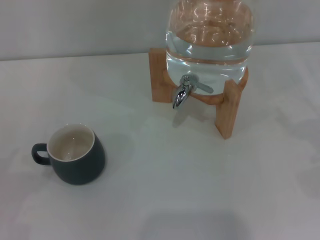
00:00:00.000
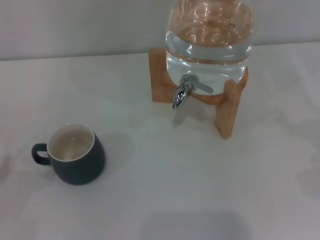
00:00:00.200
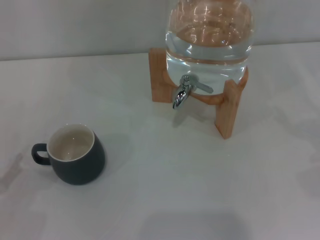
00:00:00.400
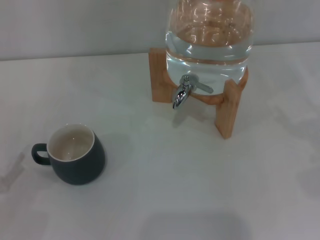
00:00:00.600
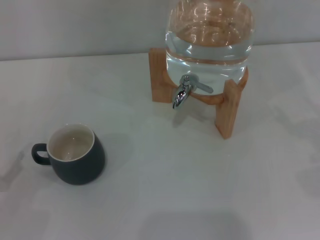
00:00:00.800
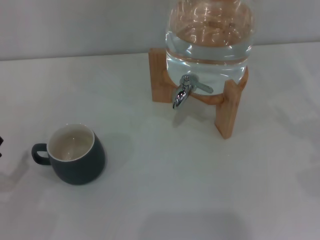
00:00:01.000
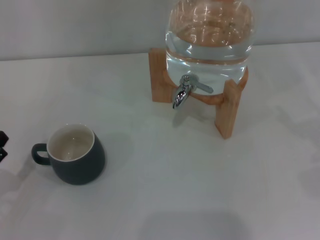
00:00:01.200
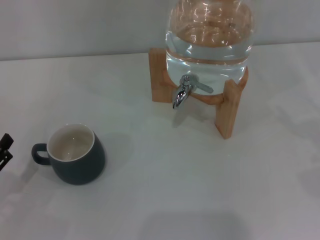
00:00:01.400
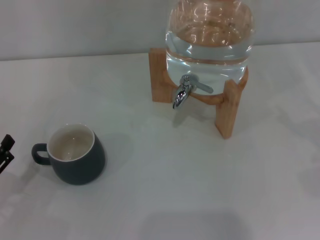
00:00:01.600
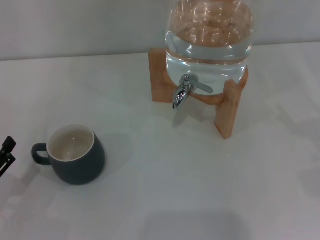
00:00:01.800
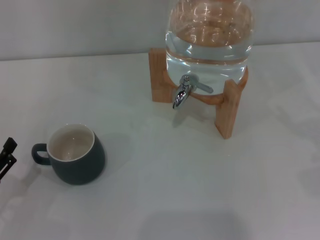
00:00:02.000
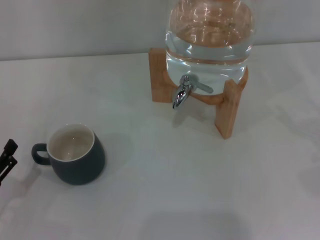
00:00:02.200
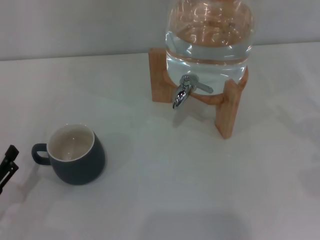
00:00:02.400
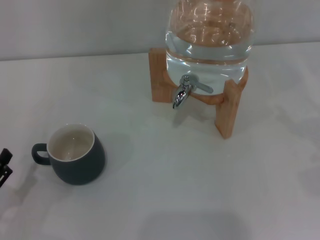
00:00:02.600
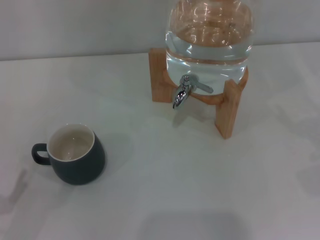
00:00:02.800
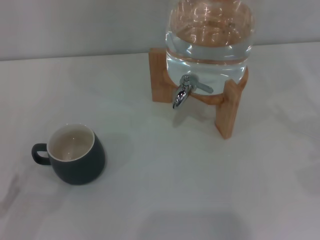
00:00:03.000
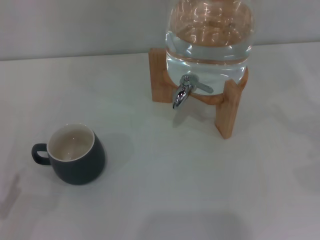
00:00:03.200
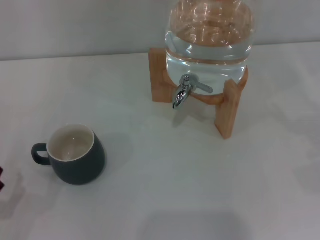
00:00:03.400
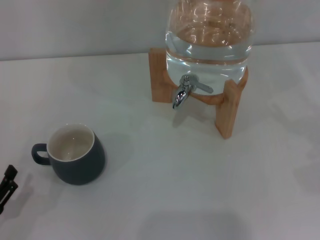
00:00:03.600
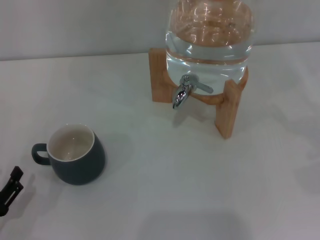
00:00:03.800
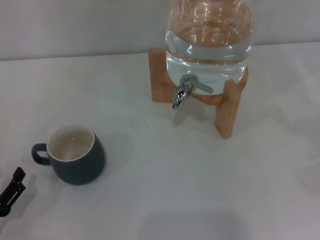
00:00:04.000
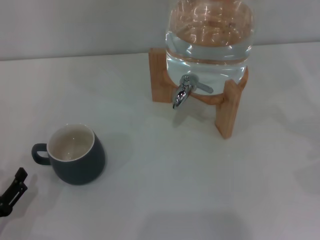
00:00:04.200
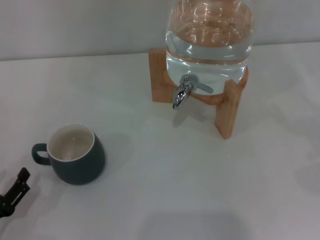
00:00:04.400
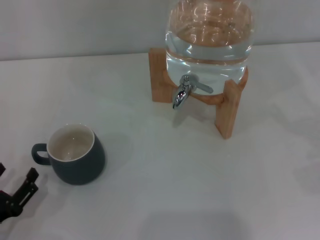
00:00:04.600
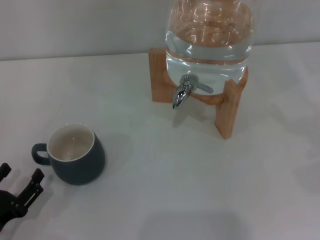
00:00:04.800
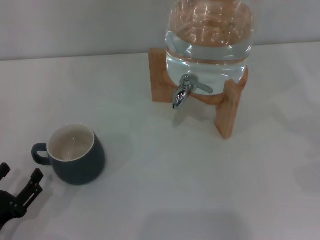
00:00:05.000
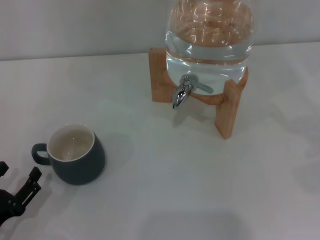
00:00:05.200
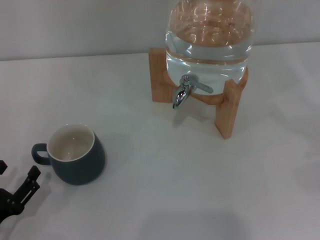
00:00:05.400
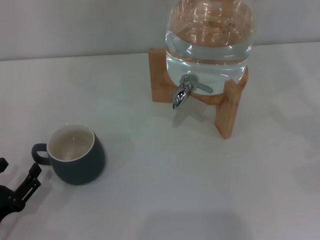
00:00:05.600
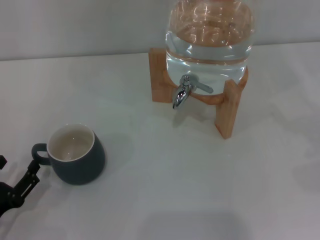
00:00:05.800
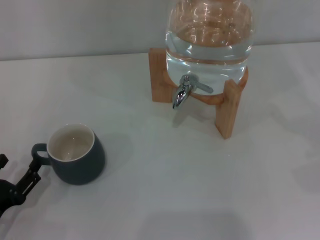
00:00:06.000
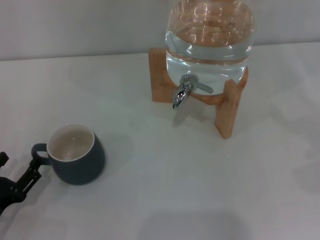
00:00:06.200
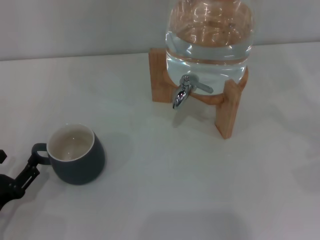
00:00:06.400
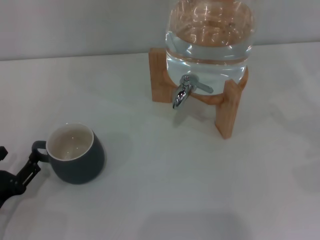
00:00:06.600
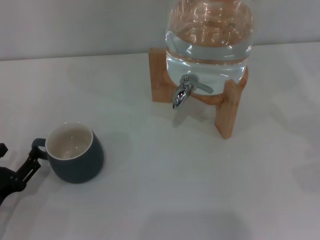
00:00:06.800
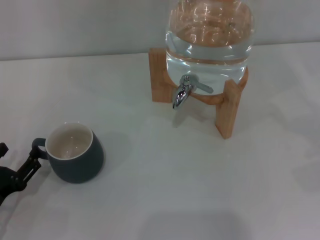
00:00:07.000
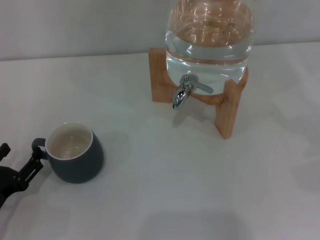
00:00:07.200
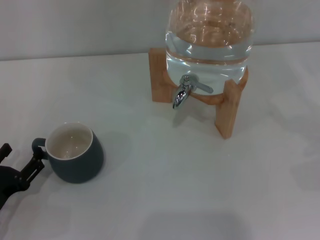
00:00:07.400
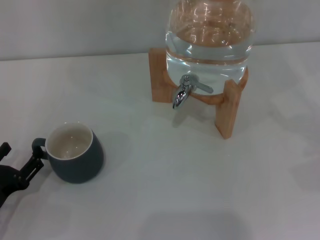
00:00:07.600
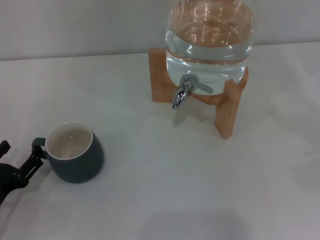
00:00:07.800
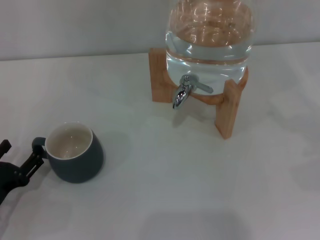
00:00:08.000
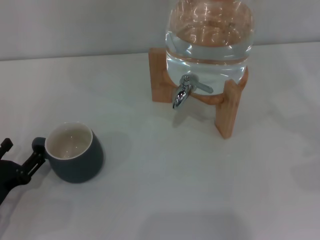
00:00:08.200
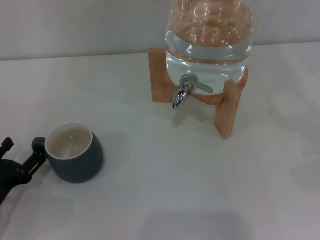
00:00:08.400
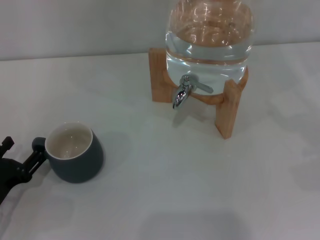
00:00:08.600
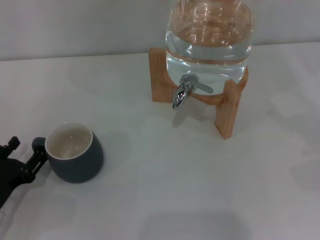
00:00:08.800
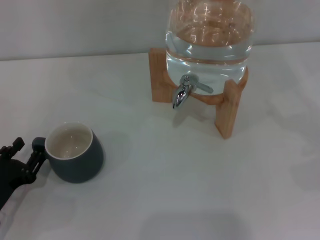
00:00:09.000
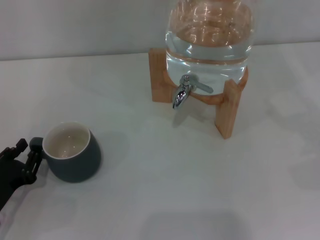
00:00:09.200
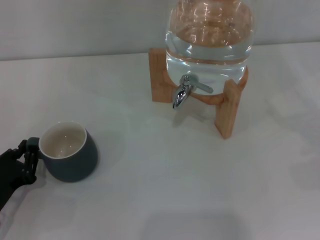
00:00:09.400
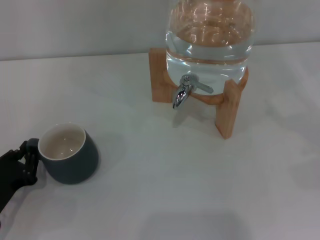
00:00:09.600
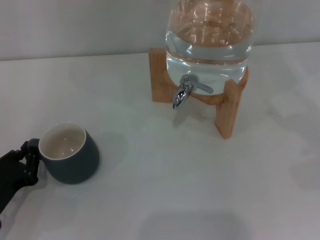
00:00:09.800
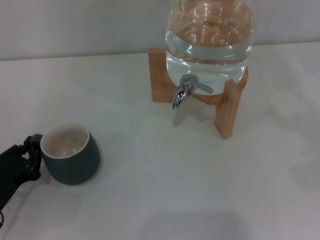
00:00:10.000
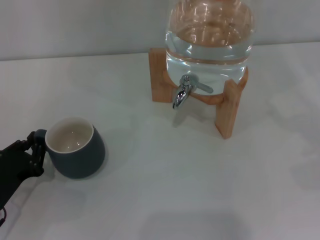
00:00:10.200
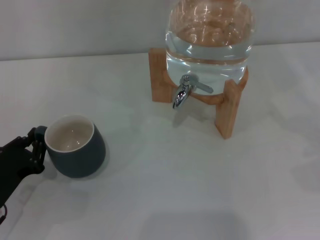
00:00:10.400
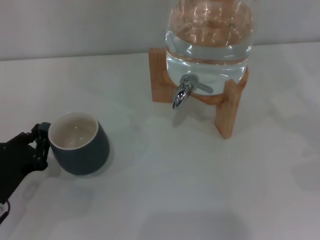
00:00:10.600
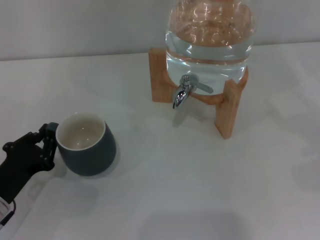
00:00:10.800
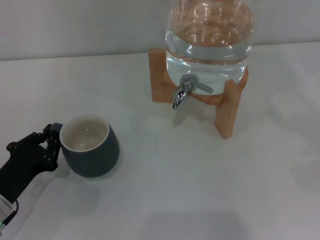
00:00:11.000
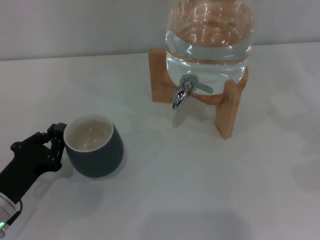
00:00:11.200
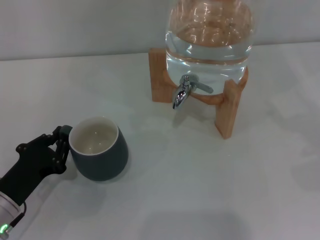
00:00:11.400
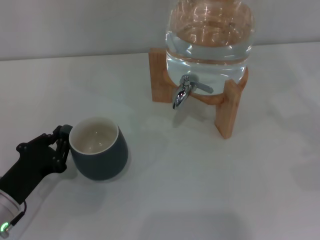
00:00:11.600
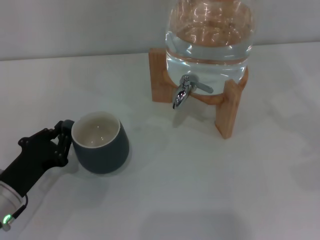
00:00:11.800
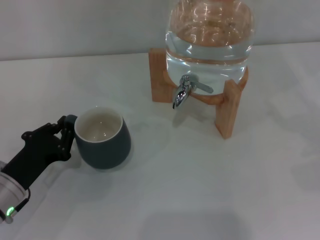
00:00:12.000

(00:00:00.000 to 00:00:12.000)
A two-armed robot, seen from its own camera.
Task of the whole recording: the left gripper pick up the black cup and place it horizontally under the faucet, the right gripper turn on the faucet to fill the cup, and then turn off the faucet.
00:00:00.000 - 00:00:01.600: The left gripper shifts some 5 cm to the right.
00:00:03.000 - 00:00:06.000: The grippers stay close to where they were, moving slightly.
00:00:06.000 - 00:00:07.600: The grippers stay close to where they were, moving slightly.
00:00:07.600 - 00:00:09.000: Both grippers stay about where they are.
00:00:09.000 - 00:00:10.400: The left gripper closes up.
00:00:10.400 - 00:00:12.000: The grippers make only small movements.

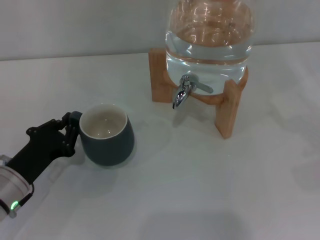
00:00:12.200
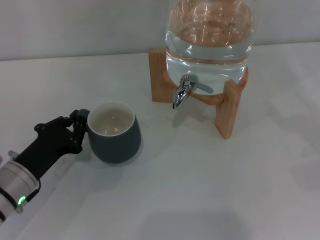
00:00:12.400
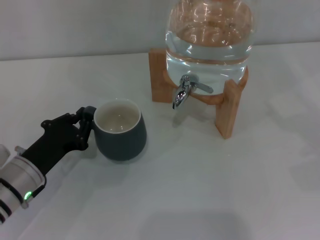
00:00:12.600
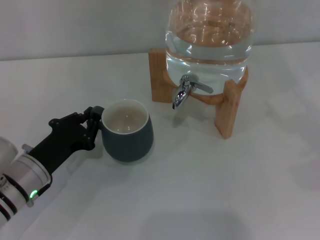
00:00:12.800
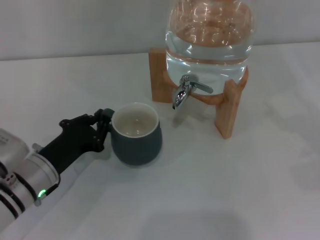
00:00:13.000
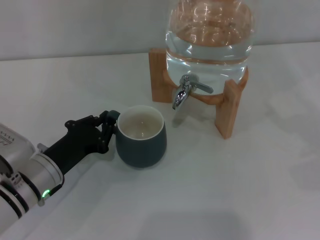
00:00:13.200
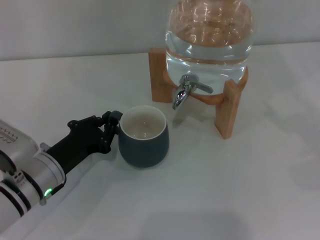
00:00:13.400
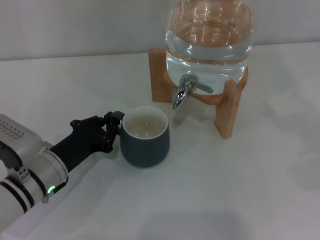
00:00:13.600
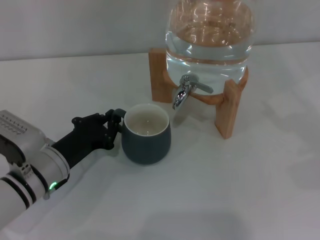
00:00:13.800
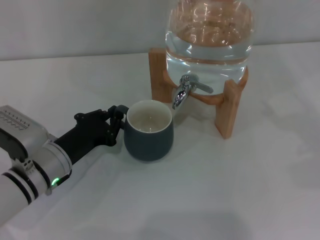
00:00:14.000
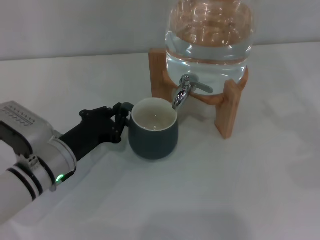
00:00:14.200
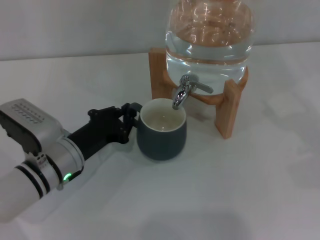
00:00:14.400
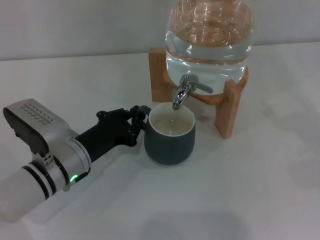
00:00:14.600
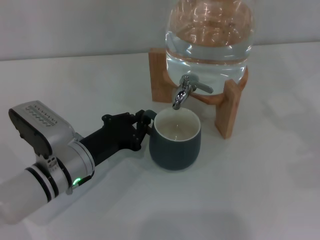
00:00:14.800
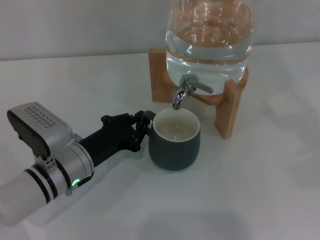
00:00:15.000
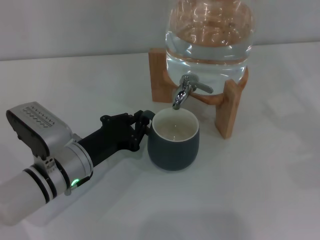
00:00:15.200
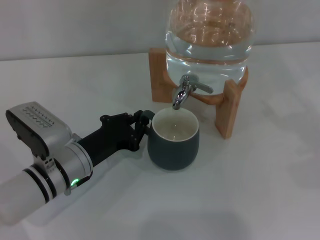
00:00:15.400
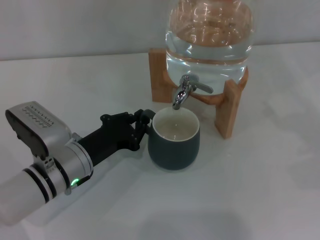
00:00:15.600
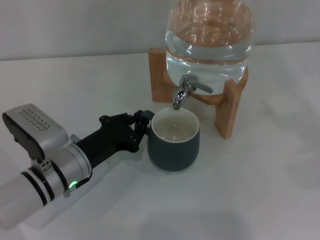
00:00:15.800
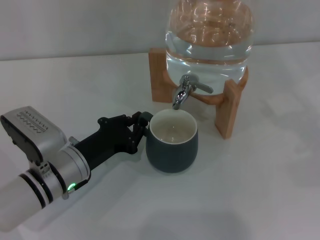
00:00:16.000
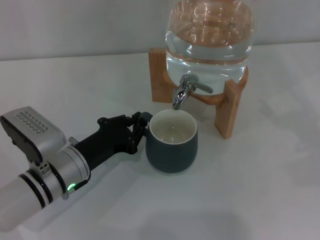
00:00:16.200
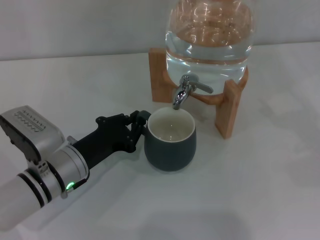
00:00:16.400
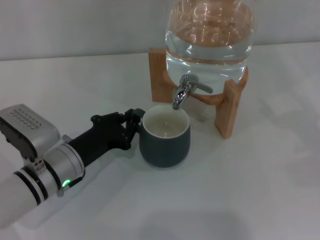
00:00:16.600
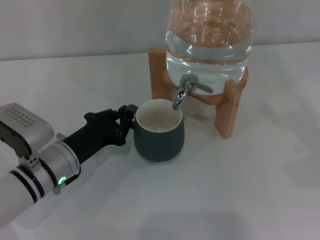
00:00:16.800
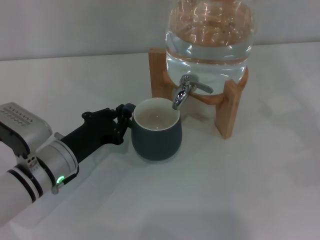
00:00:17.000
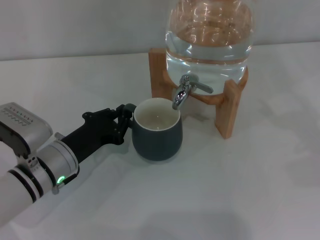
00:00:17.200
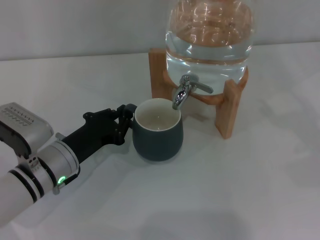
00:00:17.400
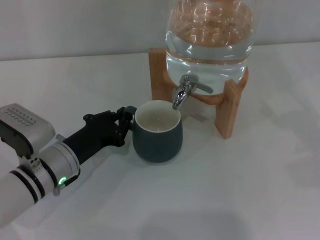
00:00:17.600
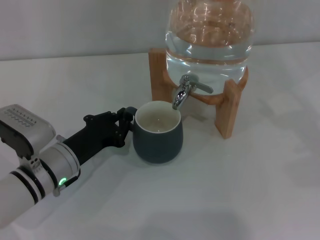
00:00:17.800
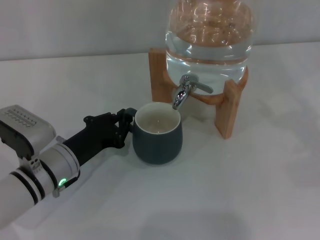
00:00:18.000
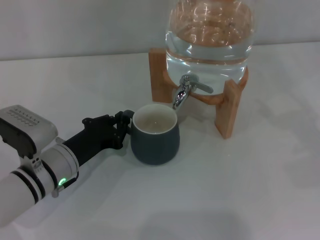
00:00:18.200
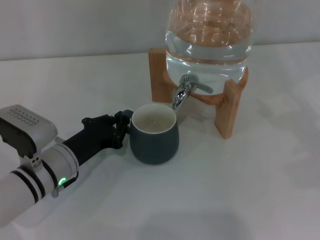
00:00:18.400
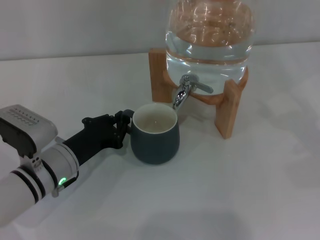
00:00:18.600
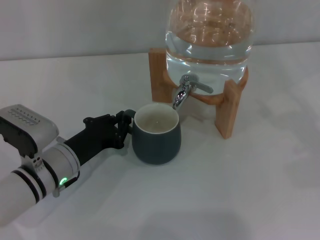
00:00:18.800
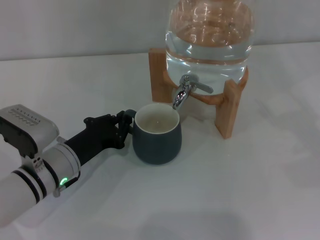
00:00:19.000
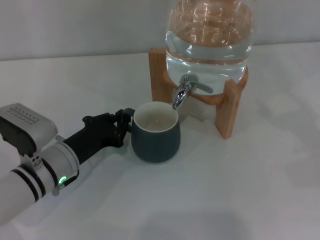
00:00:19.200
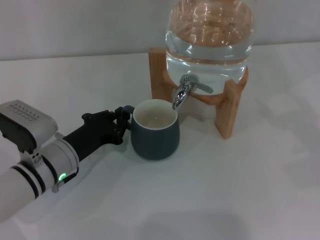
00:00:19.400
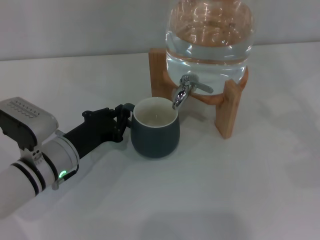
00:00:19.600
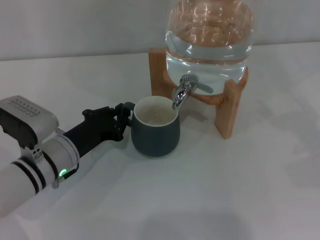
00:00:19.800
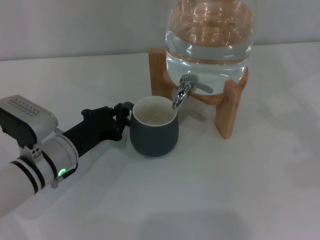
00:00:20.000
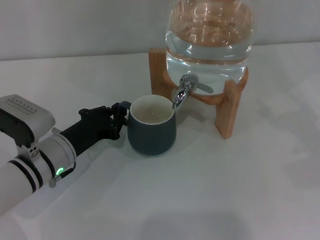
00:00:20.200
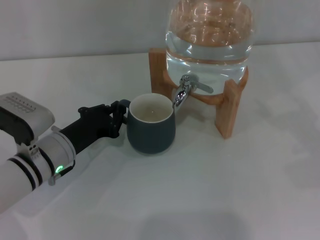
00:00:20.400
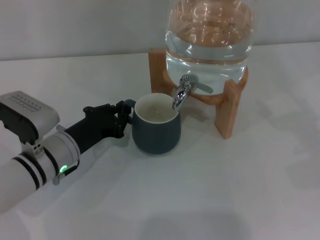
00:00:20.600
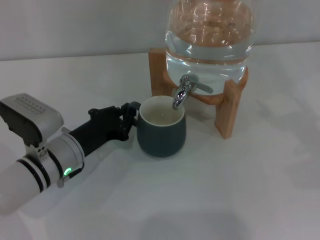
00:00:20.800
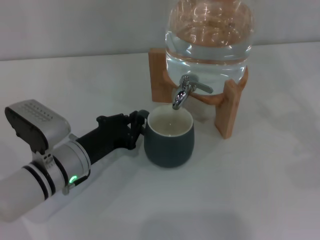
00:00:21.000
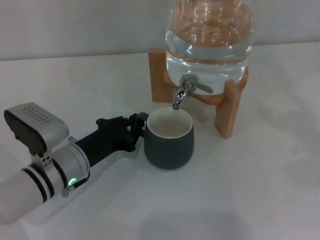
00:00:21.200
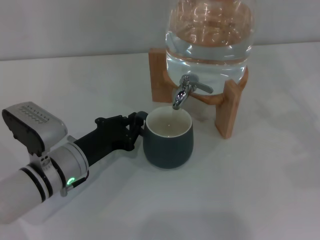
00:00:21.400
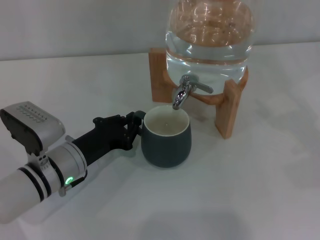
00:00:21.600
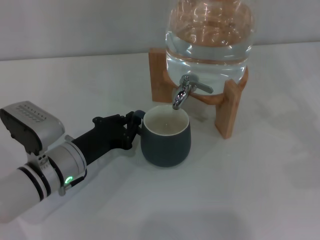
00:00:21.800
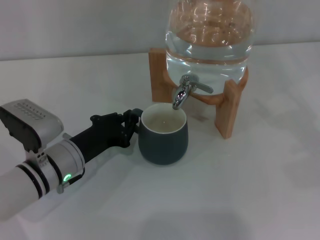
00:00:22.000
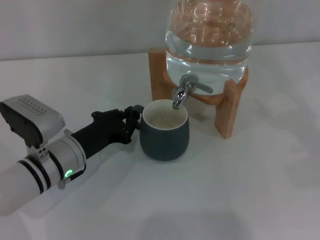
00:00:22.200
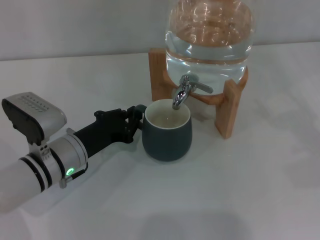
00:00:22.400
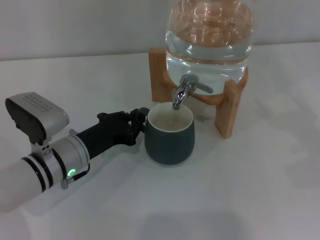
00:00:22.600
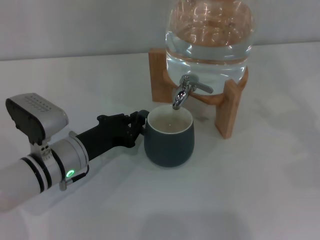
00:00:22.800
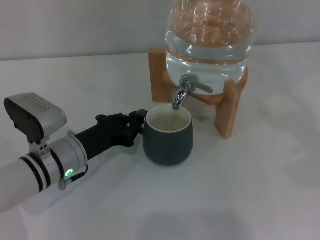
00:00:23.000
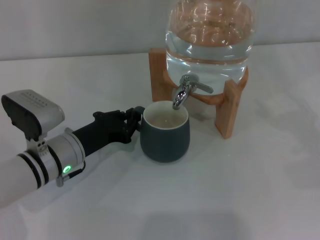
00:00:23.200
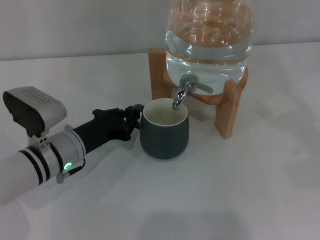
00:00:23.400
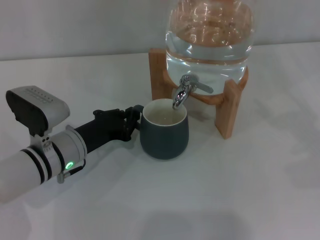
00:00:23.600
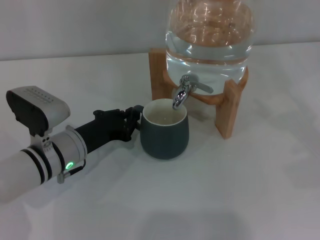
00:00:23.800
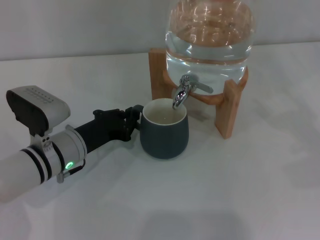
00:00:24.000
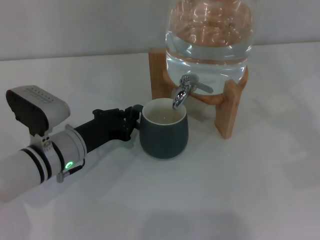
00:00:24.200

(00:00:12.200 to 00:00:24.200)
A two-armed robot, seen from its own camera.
Task of the whole recording: the left gripper pick up the black cup and place it horizontally under the faucet, the right gripper turn on the faucet to fill the cup, and then turn off the faucet.
00:00:12.200 - 00:00:13.800: The left gripper travels to the right by roughly 5 cm.
00:00:13.800 - 00:00:15.200: There are only small adjustments of the grippers.
00:00:15.200 - 00:00:16.600: Both grippers stay put.
00:00:16.600 - 00:00:18.200: The grippers make only small movements.
00:00:18.200 - 00:00:19.800: Neither gripper changes place.
00:00:19.800 - 00:00:22.600: The grippers stay close to where they were, moving slightly.
00:00:22.600 - 00:00:24.200: Both grippers stay put.
